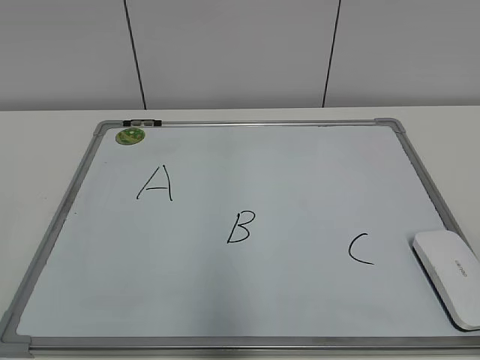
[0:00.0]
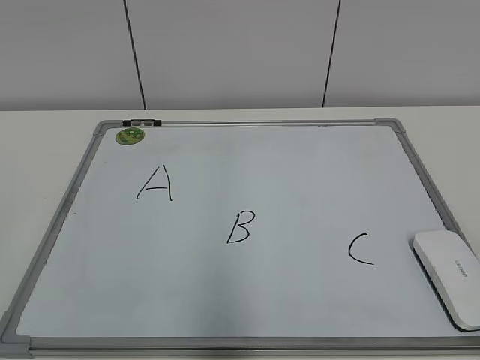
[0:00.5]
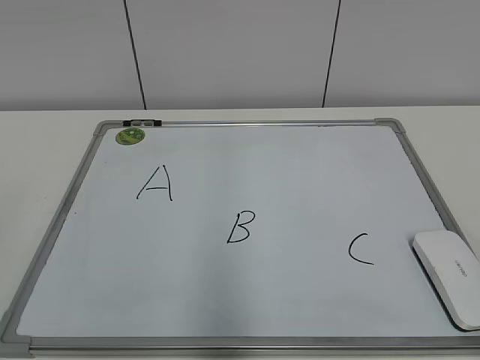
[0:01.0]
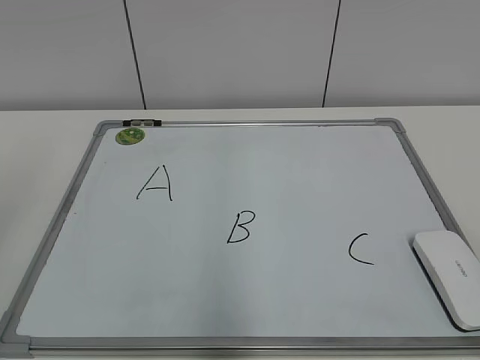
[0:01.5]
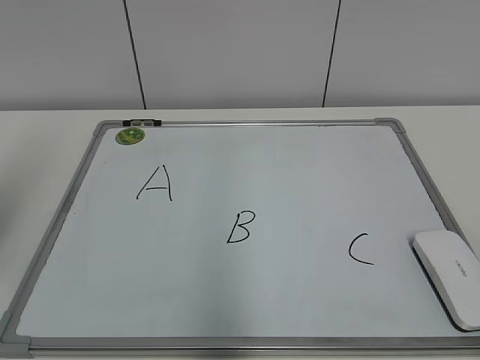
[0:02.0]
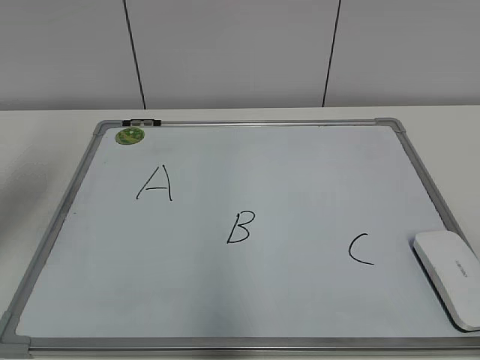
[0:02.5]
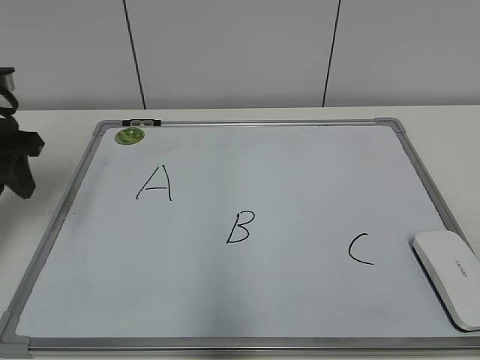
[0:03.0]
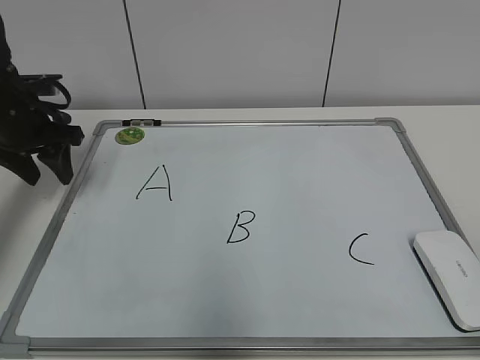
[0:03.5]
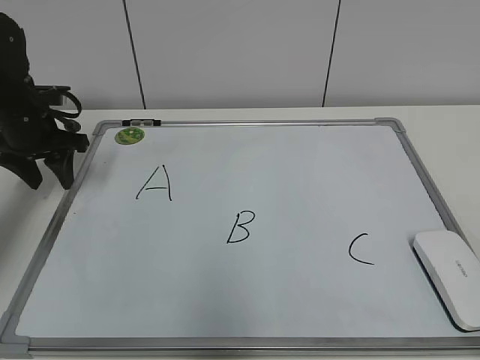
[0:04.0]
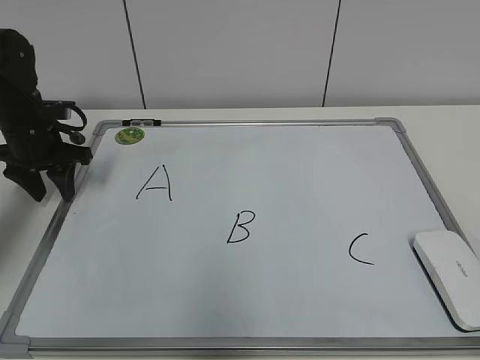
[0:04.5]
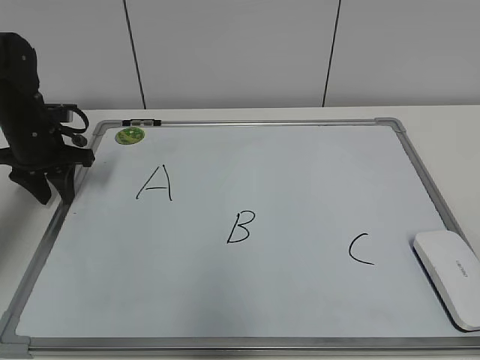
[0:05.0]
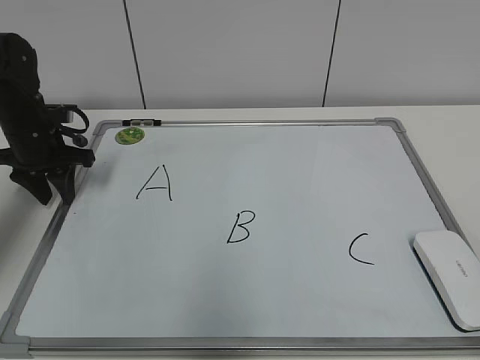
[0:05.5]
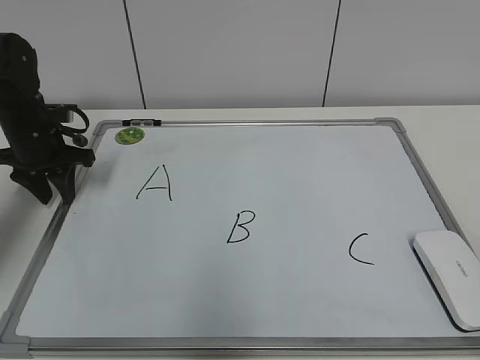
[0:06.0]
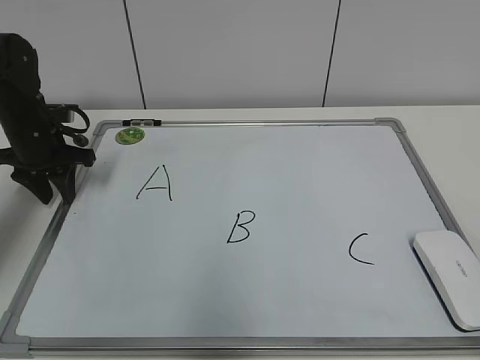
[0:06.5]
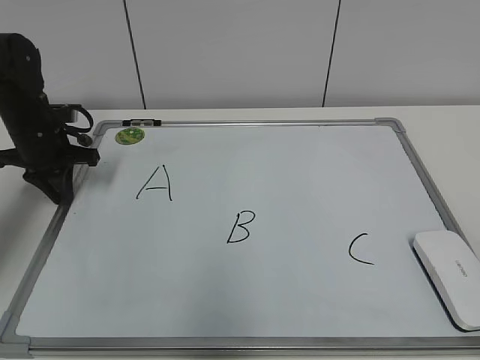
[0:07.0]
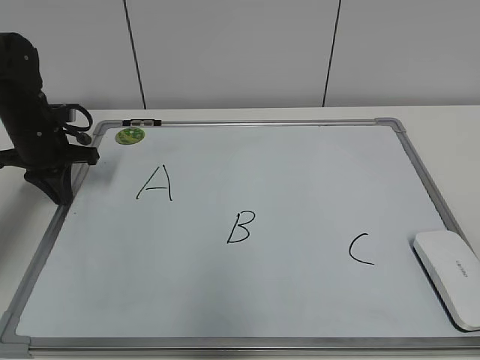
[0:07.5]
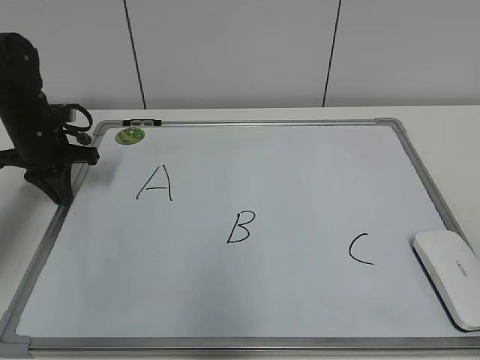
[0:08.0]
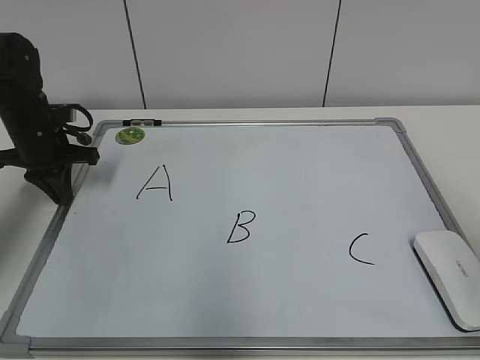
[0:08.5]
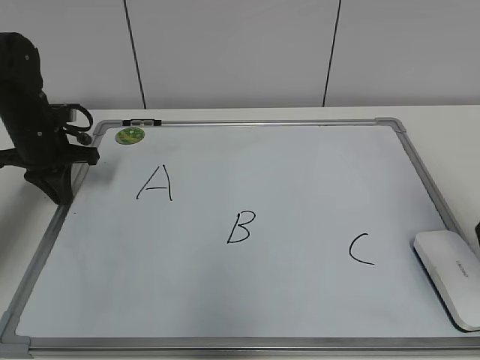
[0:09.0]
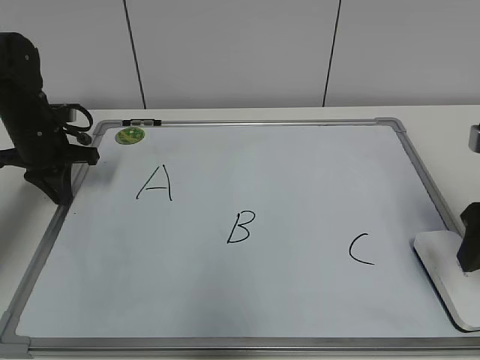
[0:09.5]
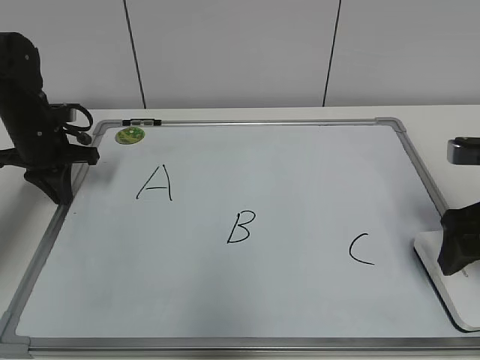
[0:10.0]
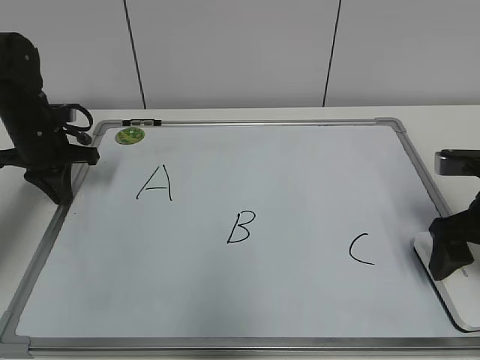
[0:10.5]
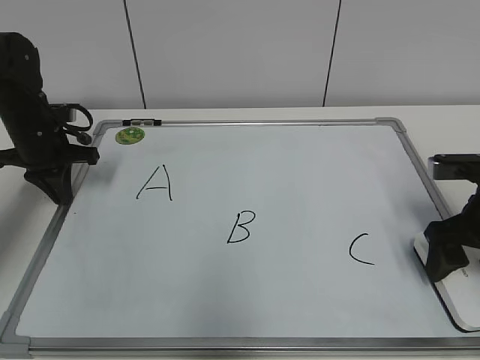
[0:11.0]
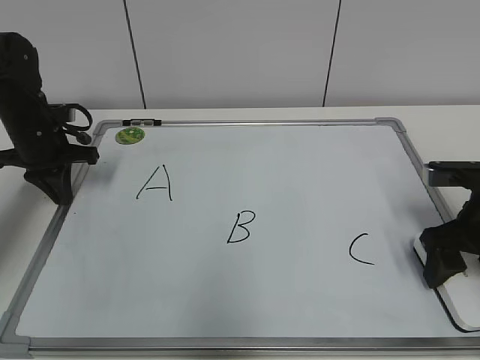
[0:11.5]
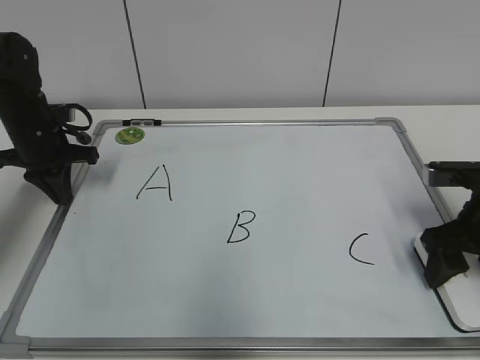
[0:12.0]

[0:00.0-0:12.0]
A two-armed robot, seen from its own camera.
Task of the whole recording: pick up the eraser on the blackboard and erase the letter "B".
Step, 0:00.0 to 0:07.5: Hold the drawing board steady with your left hand.
Step, 0:08.0 to 0:11.0: Grab the eraser with your right hand.
0:02.0 to 0:04.0: The left gripper heads forward and downward, covering some 30 cm.
0:04.0 to 0:06.0: The grippers move only a little.
0:06.0 to 0:08.0: The left gripper closes.
0:08.0 to 0:10.0: The right gripper is displaced forward by some 25 cm, and opens its fingers.
0:10.0 to 0:12.0: The right gripper closes up.

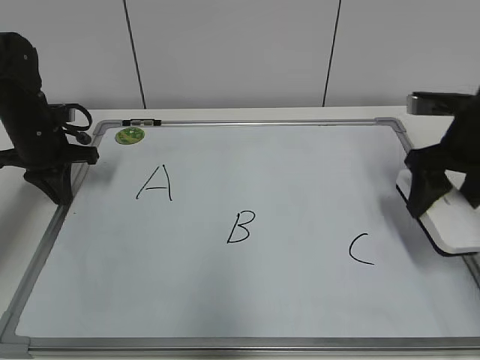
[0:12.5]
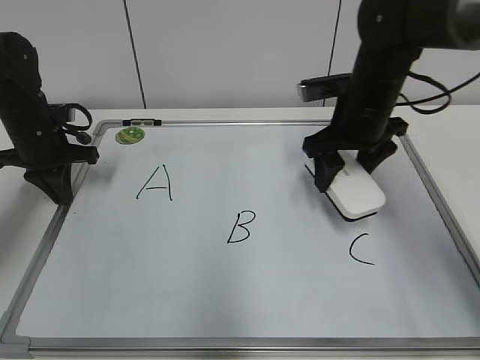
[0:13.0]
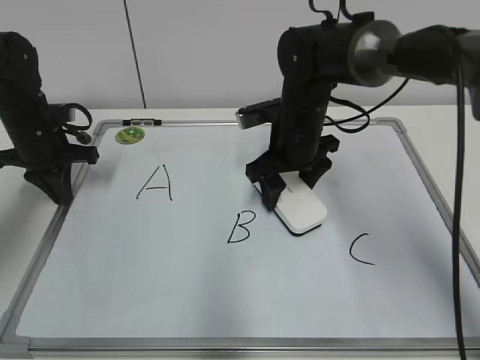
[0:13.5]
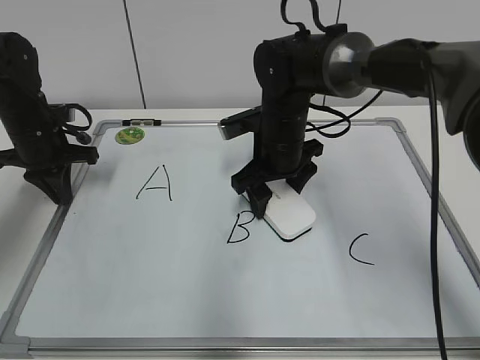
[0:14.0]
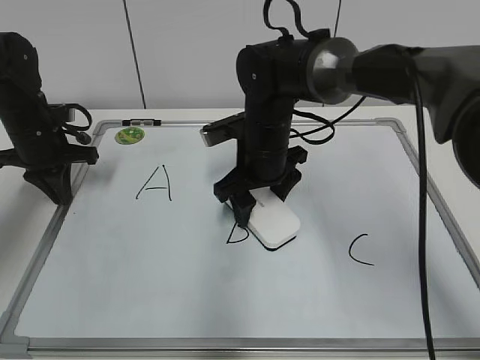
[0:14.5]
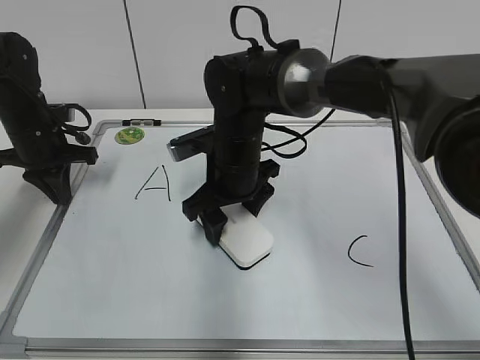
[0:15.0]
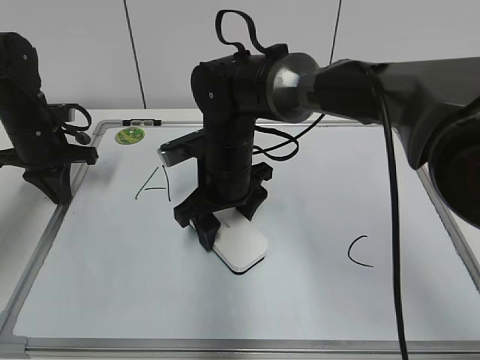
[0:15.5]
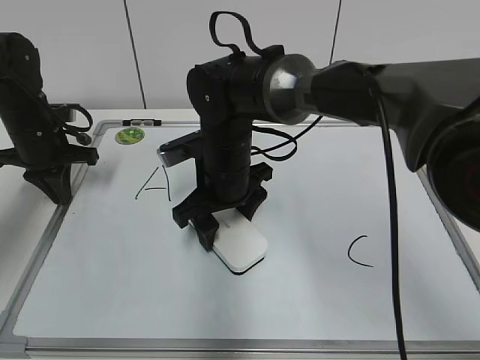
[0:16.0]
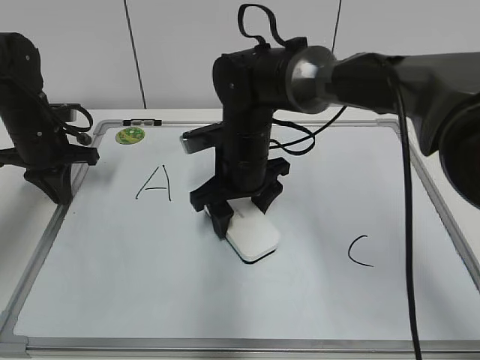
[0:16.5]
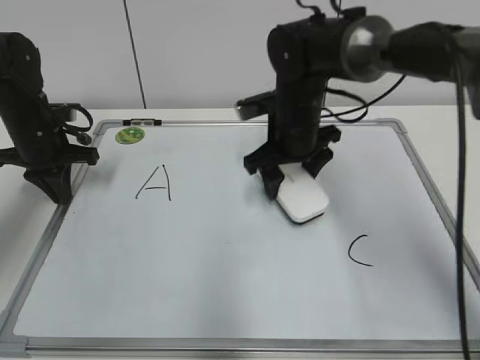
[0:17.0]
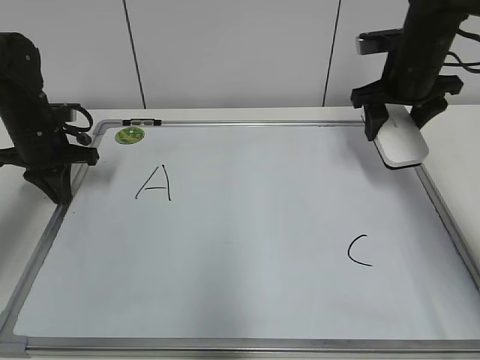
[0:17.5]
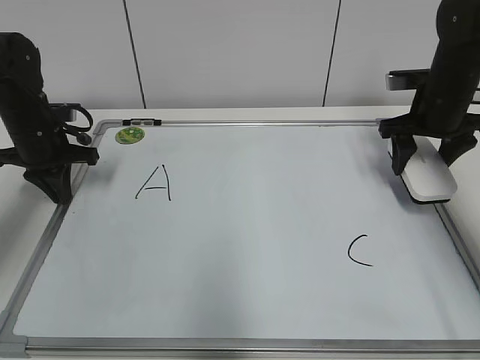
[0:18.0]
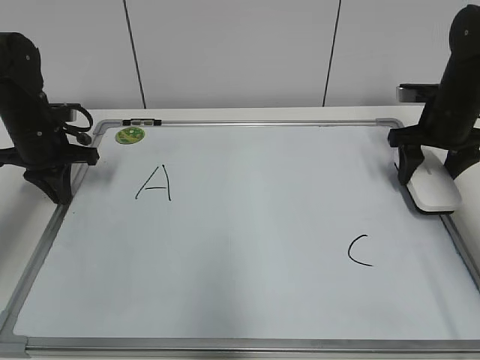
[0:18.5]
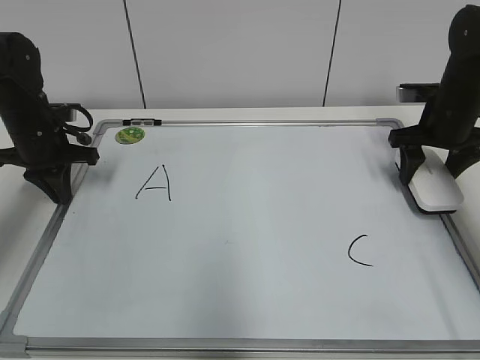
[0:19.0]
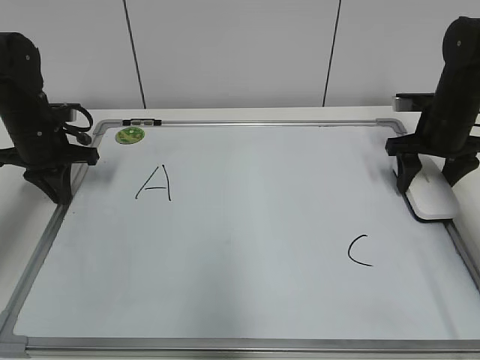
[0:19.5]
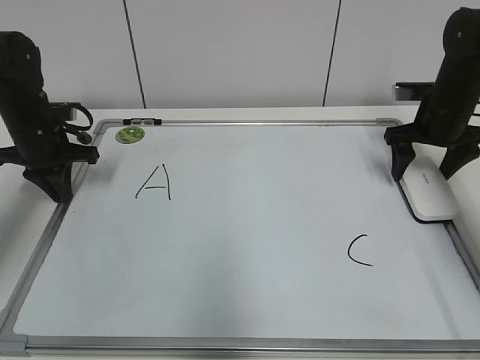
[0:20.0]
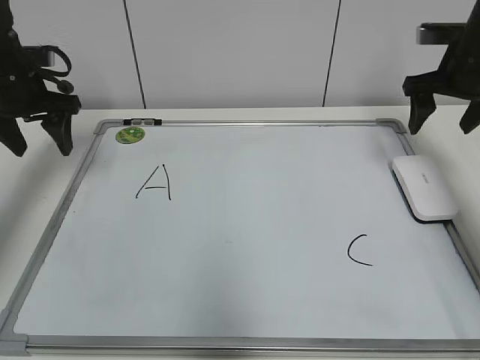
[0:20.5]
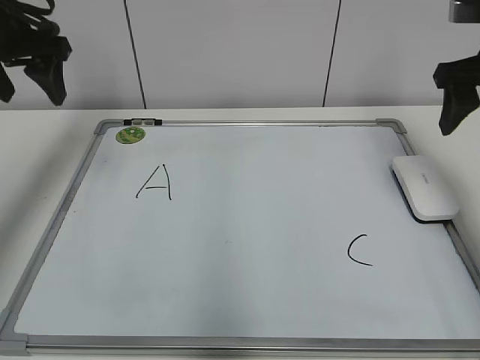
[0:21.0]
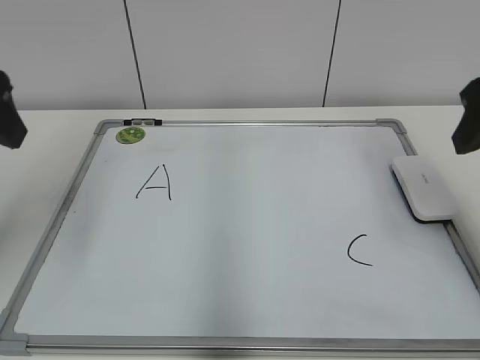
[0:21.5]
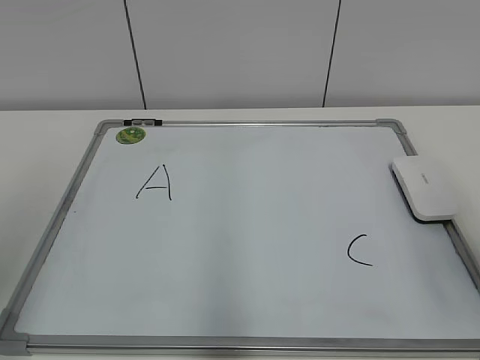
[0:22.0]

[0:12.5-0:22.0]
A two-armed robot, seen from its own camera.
Task of the whole recording: pick up the eraser on the blackboard and erase the letter "B".
Step, 0:12.5 to 0:16.5: Erase the letter B with your right hand.
Step, 0:17.0 to 0:19.5: Put down the eraser with your right hand.
0:12.5 to 0:14.5: The right gripper heads to the left, covering about 25 cm.
0:14.5 to 0:16.5: The grippers make only small movements.
0:16.5 to 0:18.0: The right gripper travels to the right by approximately 25 cm.
0:18.0 to 0:20.0: The right gripper opens up.
0:20.0 to 0:22.0: Both grippers move backward and upward, approximately 35 cm. The left gripper opens. The right gripper closes.

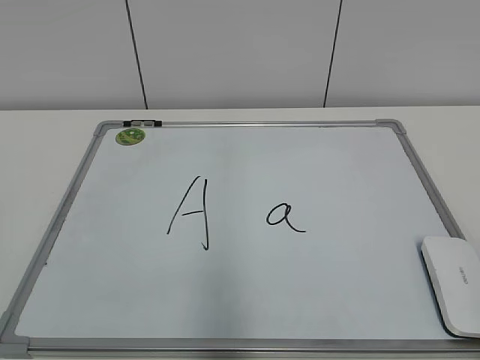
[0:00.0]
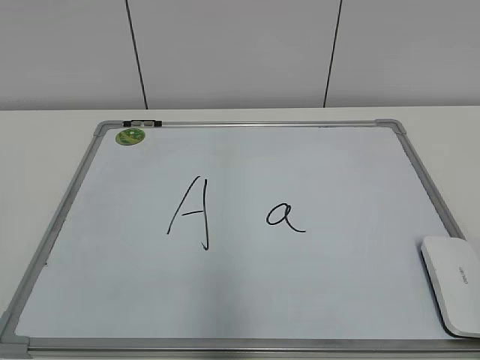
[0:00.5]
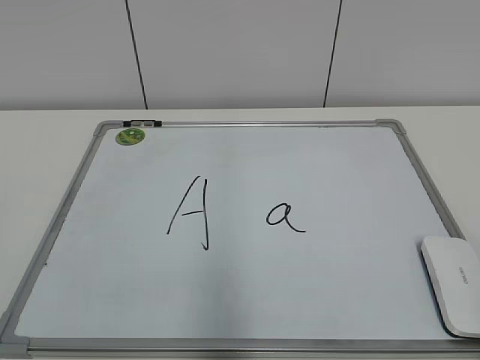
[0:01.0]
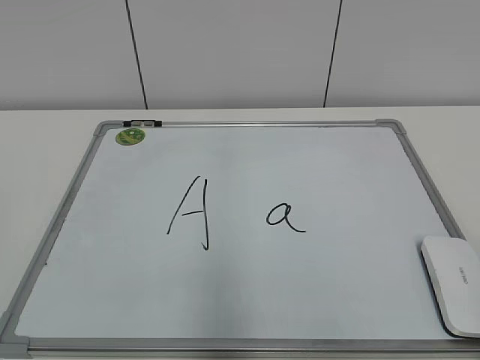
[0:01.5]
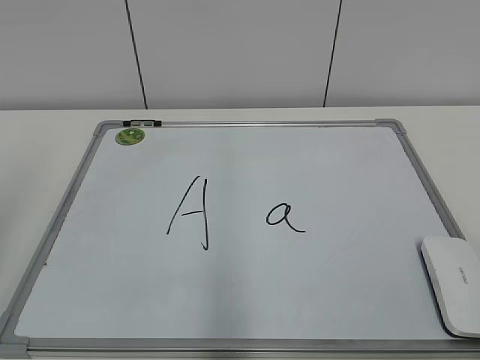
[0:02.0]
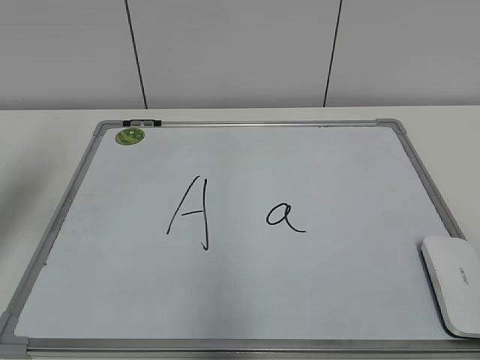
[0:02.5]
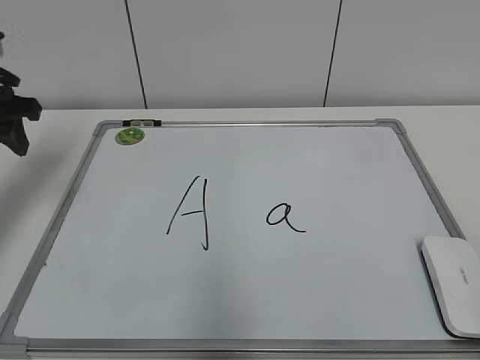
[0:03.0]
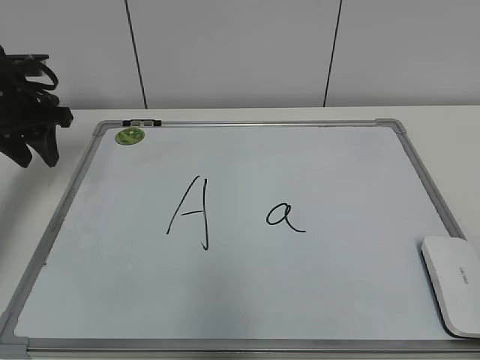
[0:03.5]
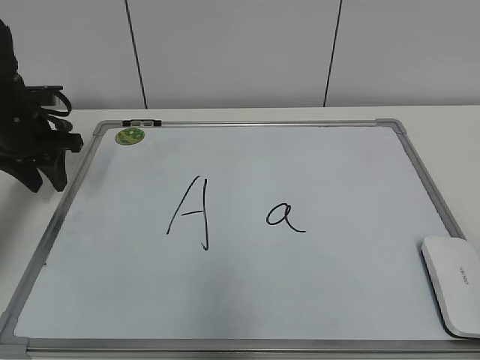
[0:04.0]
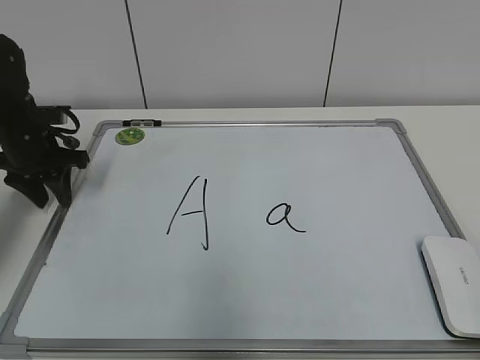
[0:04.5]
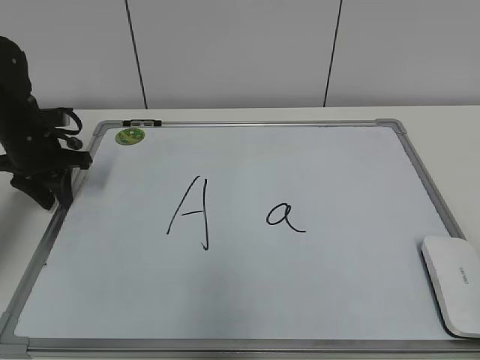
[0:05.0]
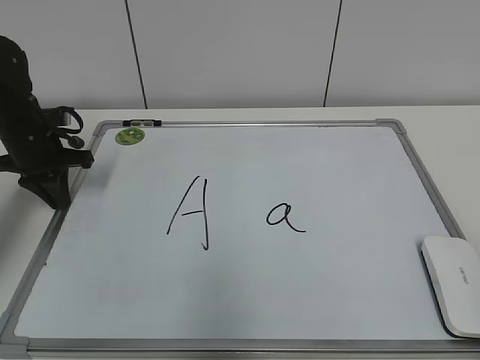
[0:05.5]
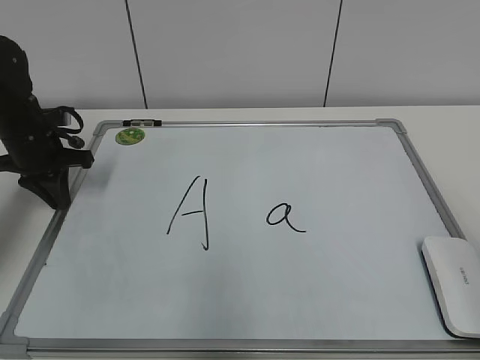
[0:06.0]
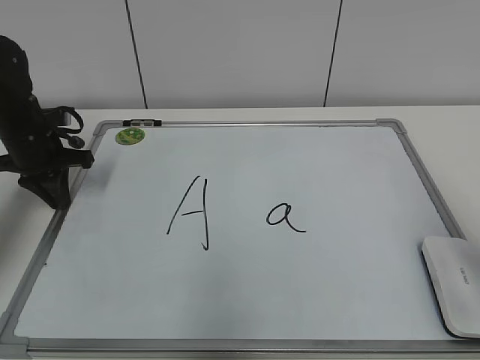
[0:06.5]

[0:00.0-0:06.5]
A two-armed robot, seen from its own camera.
Task of the whole recording: pick up the eraser on the blackboard and erase the letter "a".
Step, 0:00.0 to 0:06.0: Hold the drawing board steady with your left hand.
0:02.0 to 0:04.5: The left gripper heads forward and downward, covering about 35 cm.
0:04.5 to 0:06.5: The left gripper closes, while the right gripper shifts roughly 15 cm forward, and opens.
